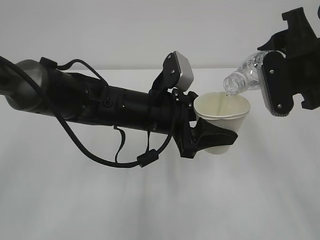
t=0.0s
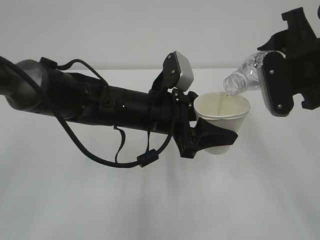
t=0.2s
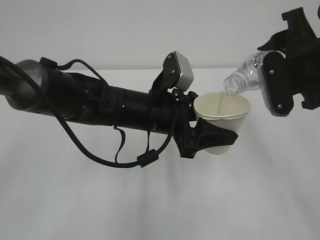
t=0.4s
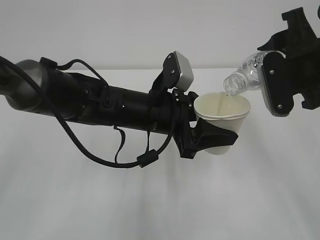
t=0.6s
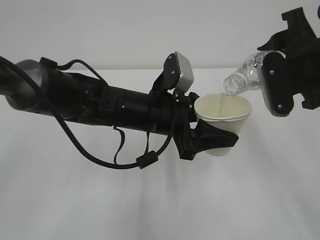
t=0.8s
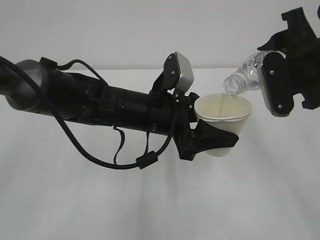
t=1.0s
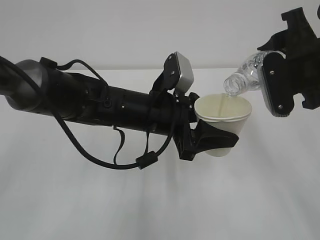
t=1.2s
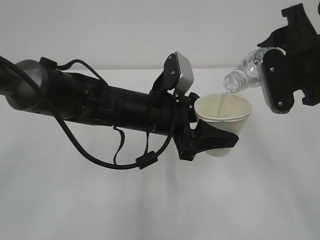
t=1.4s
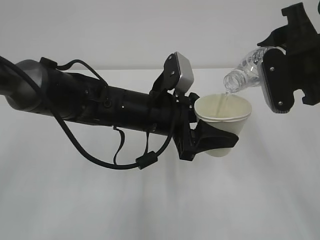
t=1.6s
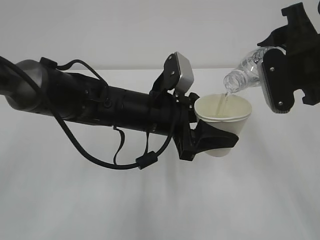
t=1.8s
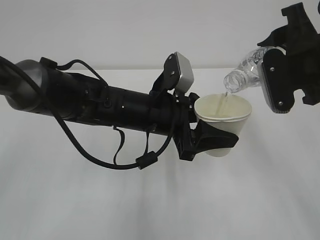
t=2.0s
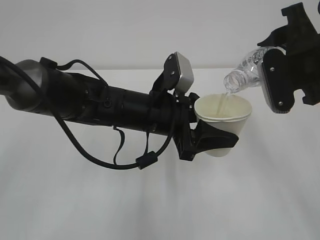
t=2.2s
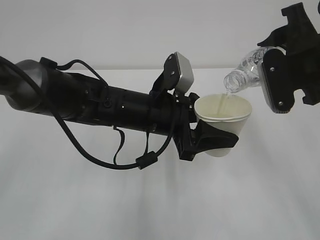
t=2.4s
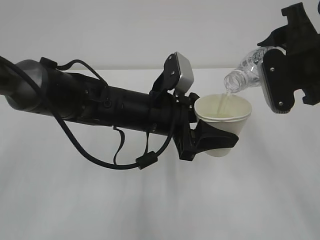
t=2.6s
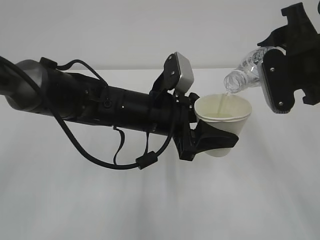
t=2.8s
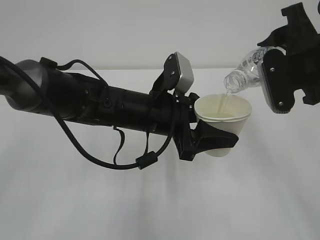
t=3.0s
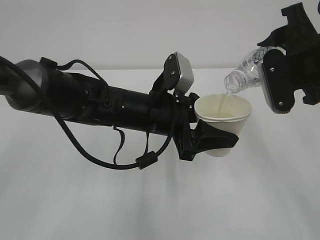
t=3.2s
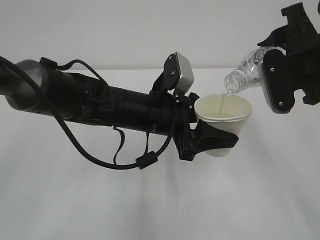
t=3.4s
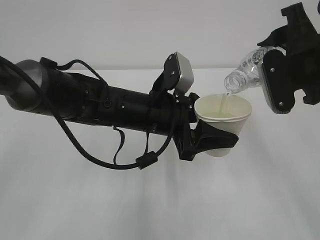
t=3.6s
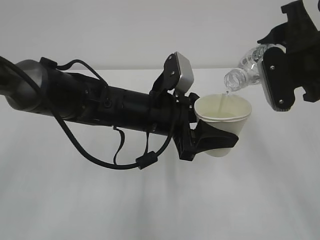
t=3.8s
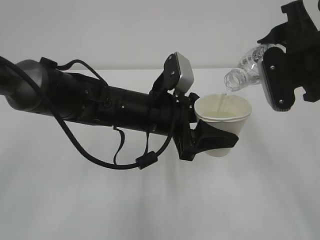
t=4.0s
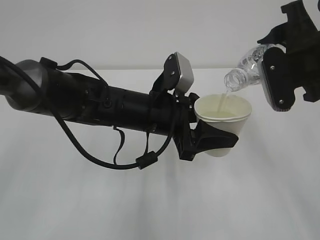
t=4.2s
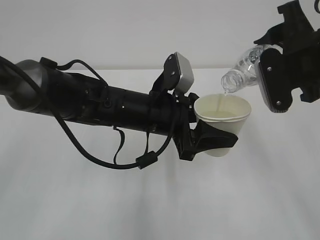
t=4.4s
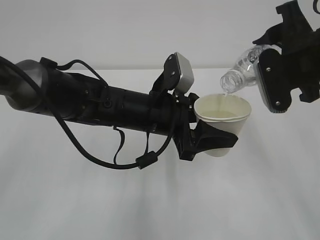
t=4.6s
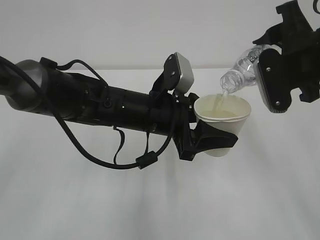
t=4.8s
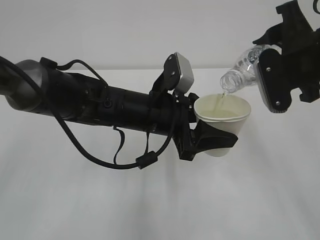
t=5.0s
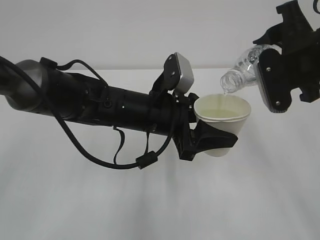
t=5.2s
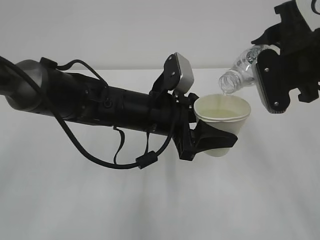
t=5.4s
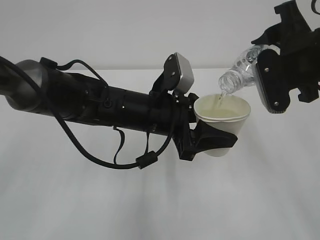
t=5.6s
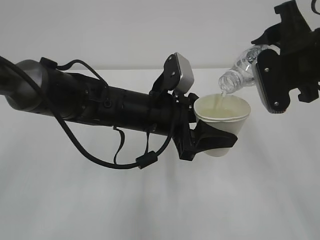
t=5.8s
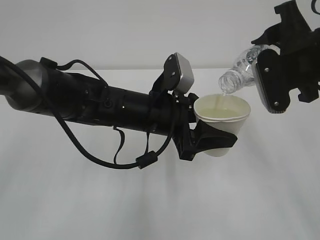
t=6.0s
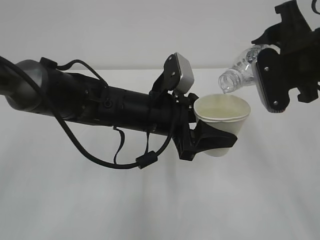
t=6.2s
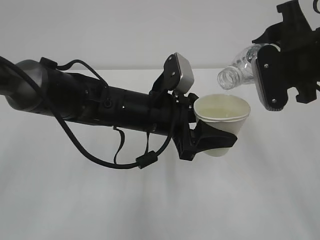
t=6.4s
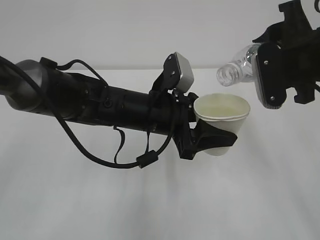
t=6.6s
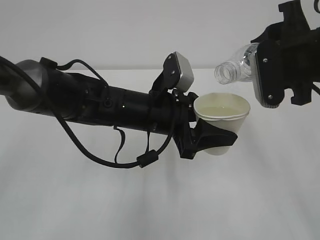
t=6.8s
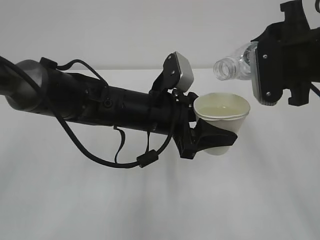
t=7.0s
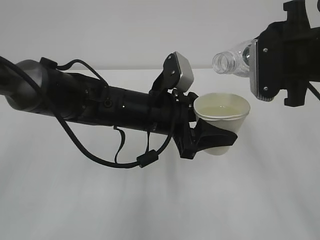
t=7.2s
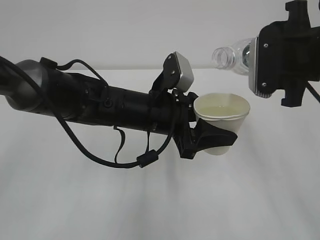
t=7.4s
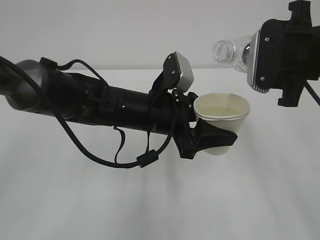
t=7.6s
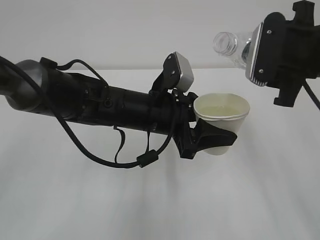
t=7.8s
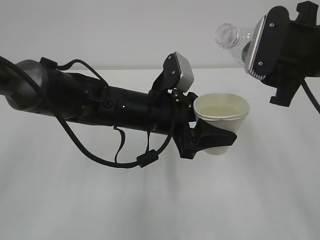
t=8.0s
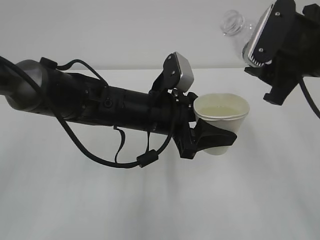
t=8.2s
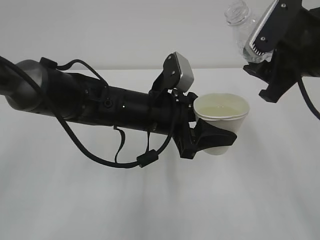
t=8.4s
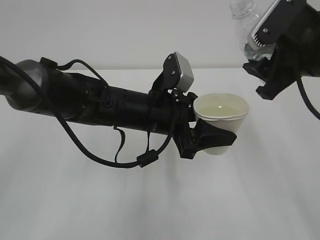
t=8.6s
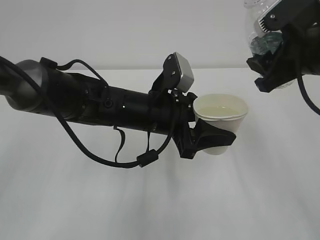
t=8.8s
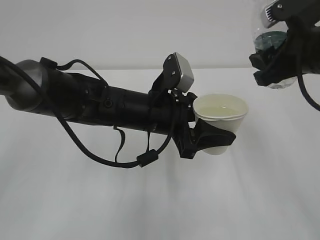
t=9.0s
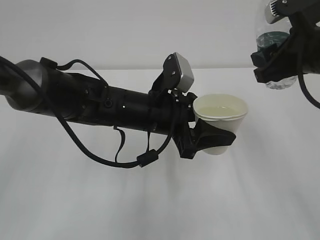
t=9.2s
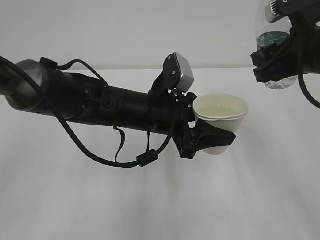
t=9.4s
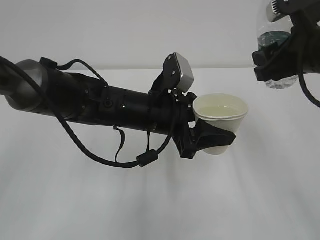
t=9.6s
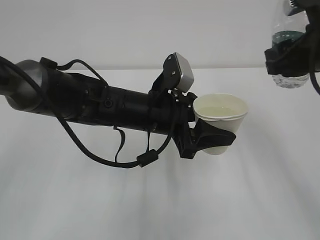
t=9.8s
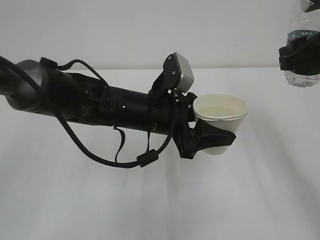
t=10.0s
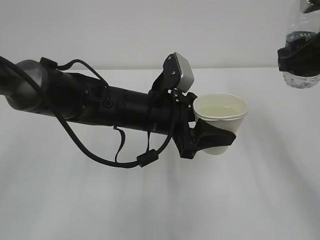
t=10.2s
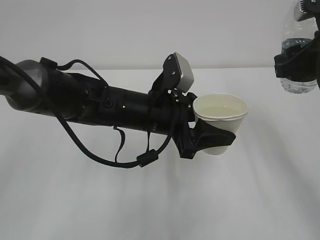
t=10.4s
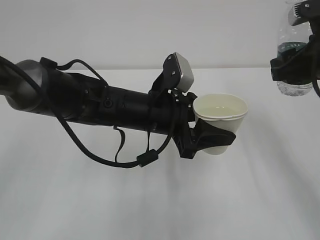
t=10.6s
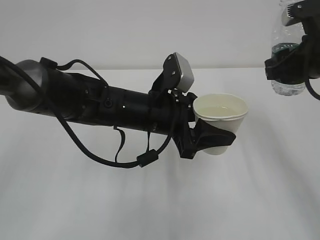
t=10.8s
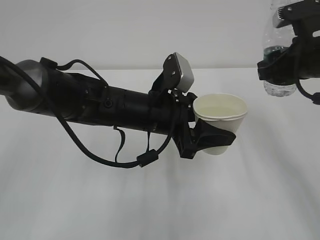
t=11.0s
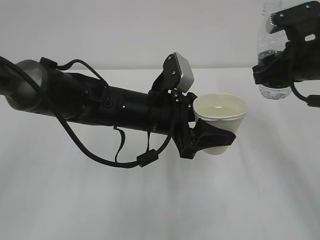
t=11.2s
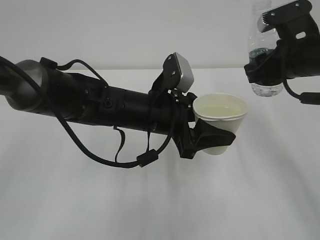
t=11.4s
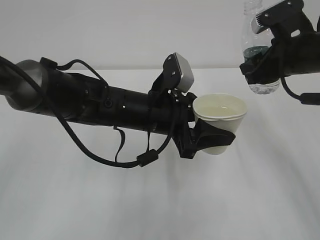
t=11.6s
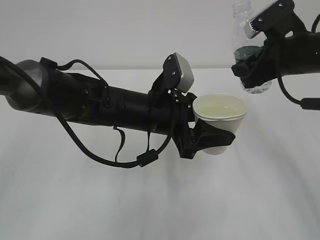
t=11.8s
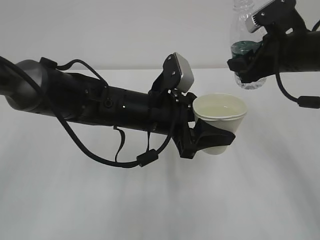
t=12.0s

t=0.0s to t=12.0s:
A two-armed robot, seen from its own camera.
t=0.0s to t=6.0s: The two grippers keep their place.
t=9.0s to t=10.4s: The grippers move only a little.
t=10.4s to t=12.0s: The right gripper is displaced forward by approximately 5 cm.

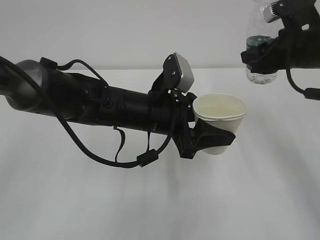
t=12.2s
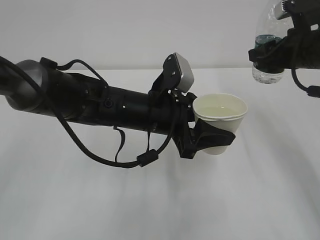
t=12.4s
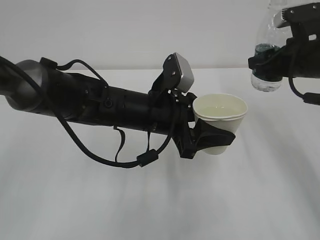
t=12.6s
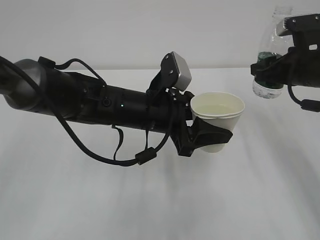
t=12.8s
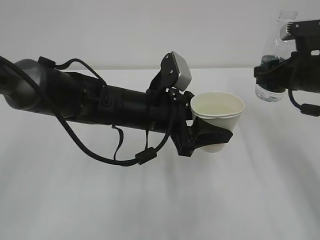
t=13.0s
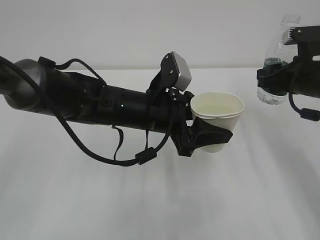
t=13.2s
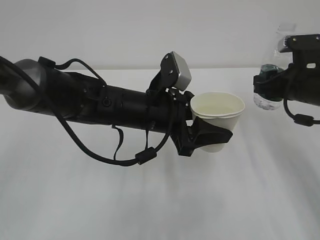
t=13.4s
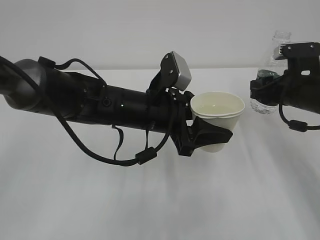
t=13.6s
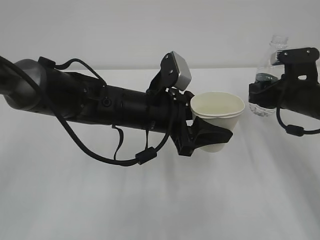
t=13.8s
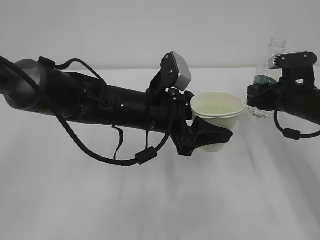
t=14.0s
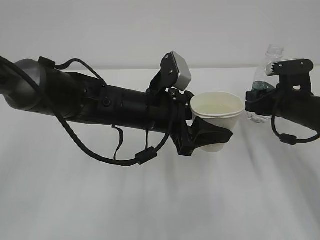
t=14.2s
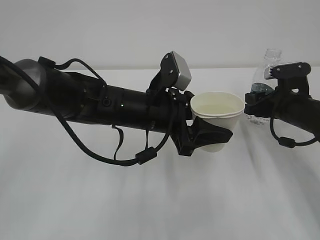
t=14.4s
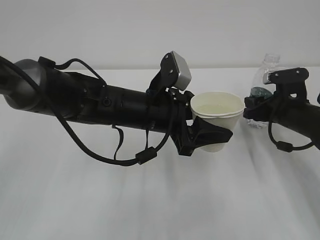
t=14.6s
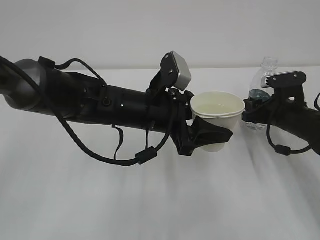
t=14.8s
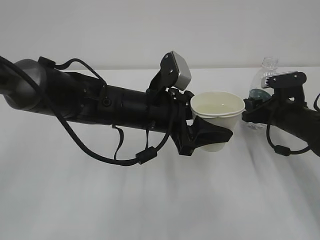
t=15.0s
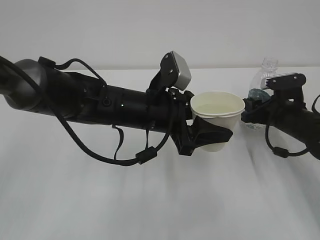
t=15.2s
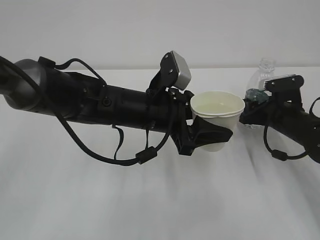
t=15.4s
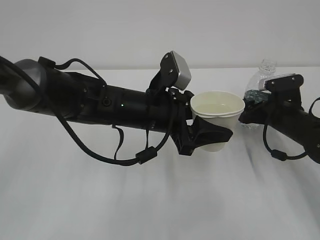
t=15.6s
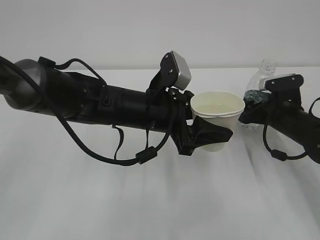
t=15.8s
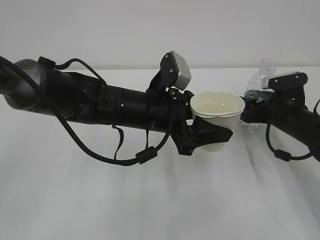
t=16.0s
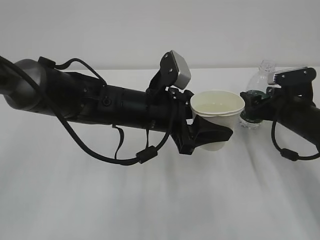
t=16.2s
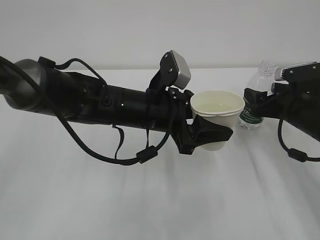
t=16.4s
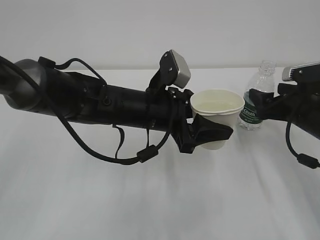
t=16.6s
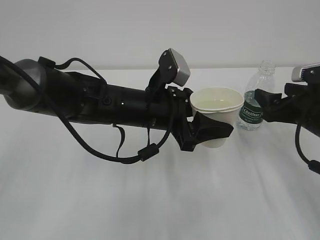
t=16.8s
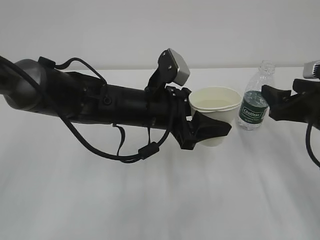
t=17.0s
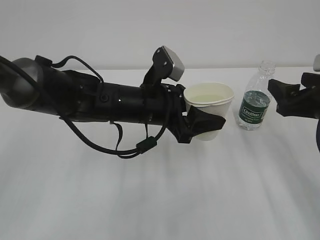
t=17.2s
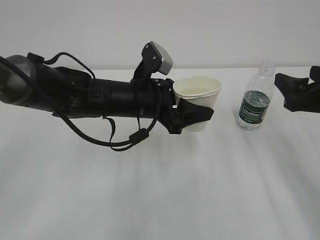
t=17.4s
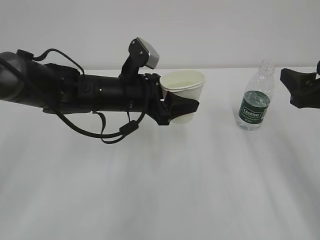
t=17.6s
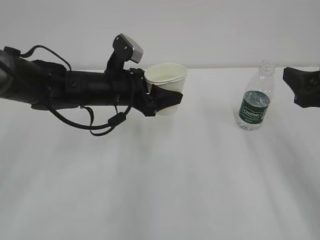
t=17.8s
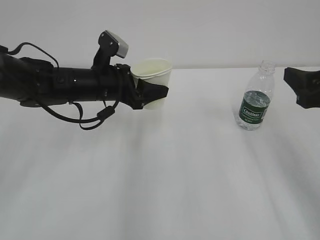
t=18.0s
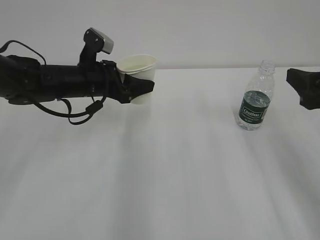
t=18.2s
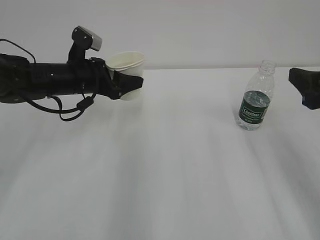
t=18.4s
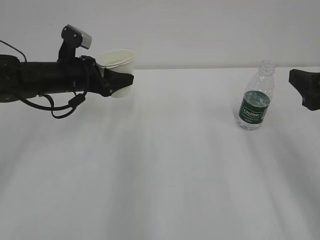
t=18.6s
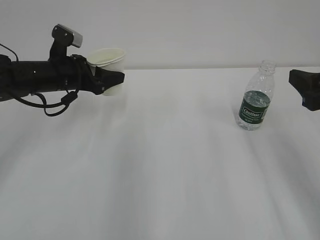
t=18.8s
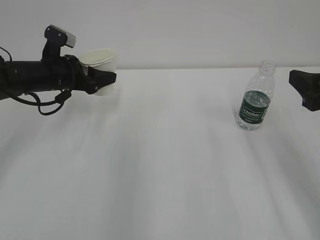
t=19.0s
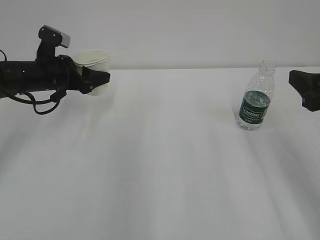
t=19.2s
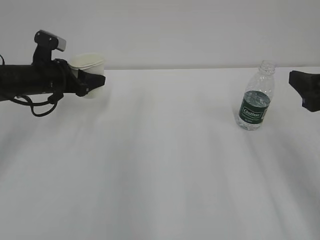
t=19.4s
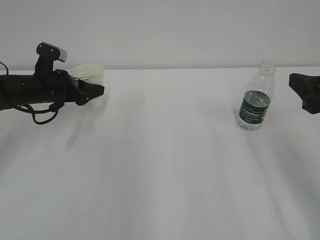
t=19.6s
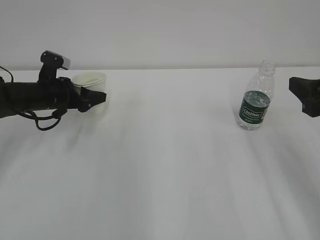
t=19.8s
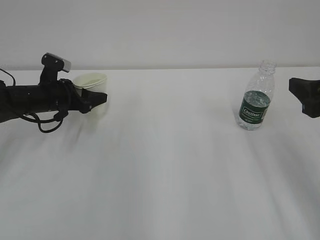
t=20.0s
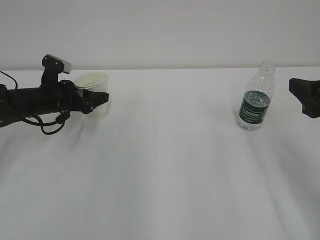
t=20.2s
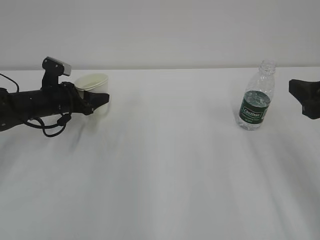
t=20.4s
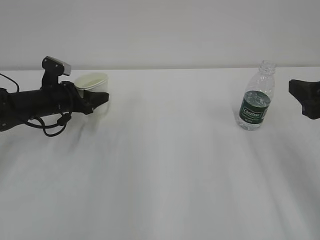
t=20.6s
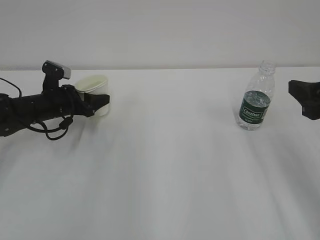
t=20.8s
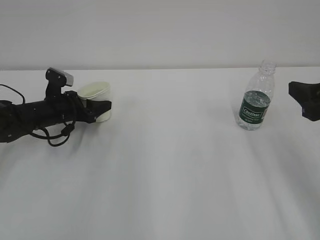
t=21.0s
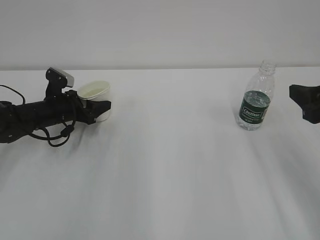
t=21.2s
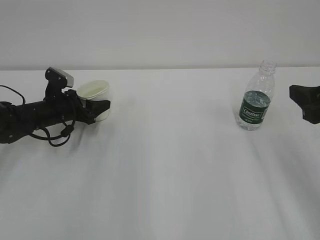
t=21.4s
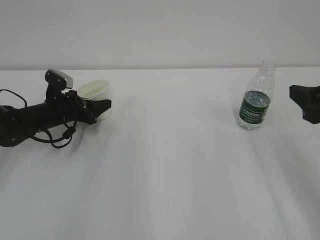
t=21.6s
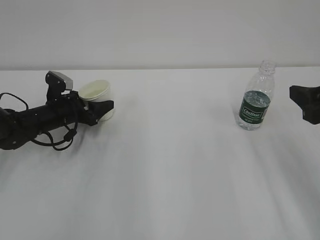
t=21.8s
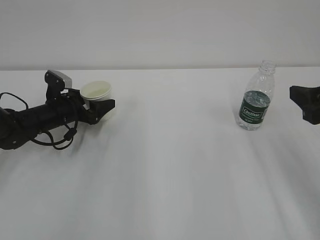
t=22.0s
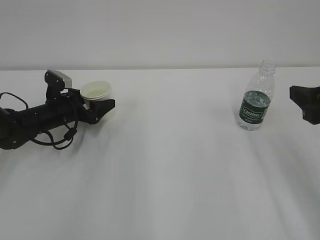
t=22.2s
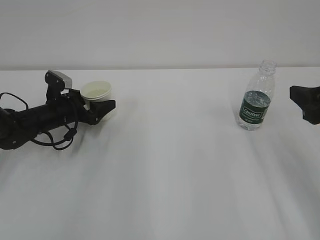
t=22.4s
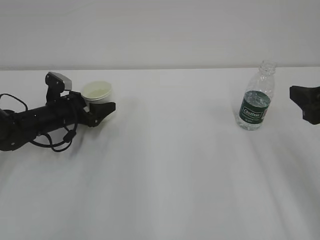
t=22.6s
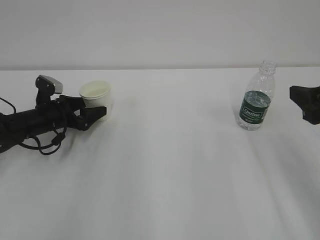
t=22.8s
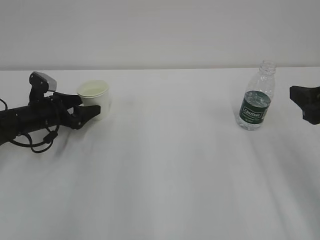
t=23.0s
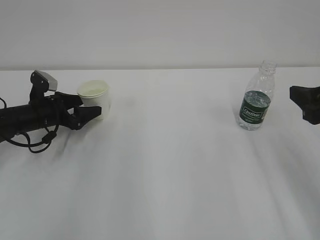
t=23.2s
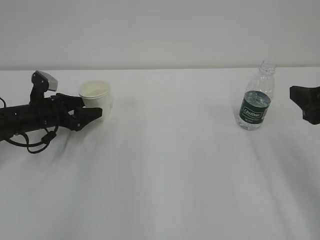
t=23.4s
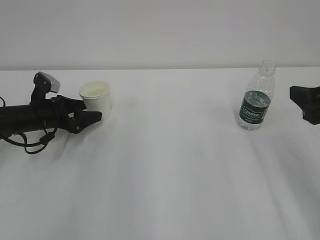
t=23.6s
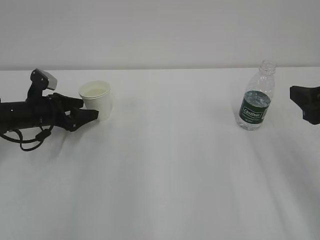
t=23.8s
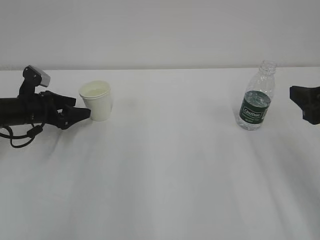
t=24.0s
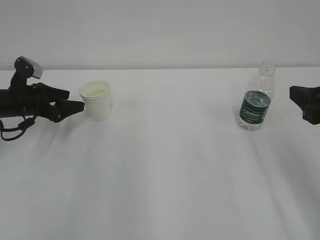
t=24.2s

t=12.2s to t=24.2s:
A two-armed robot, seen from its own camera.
t=12.2s to t=13.8s: The right gripper shifts approximately 10 cm downward.
t=13.8s to t=15.2s: The right gripper travels downward by some 5 cm.
t=15.2s to t=16.6s: The right gripper heads backward and upward, covering about 10 cm, and opens its fingers.
t=16.6s to t=18.2s: The right gripper goes approximately 15 cm upward and backward. Meanwhile the left gripper travels to the left and forward by some 15 cm.
t=18.2s to t=19.8s: The left gripper travels to the left and downward by about 10 cm.
t=19.8s to t=21.2s: The grippers move only a little.
t=21.2s to t=22.6s: The left gripper opens up.
t=22.6s to t=24.2s: The left gripper travels upward and to the left by approximately 10 cm.
